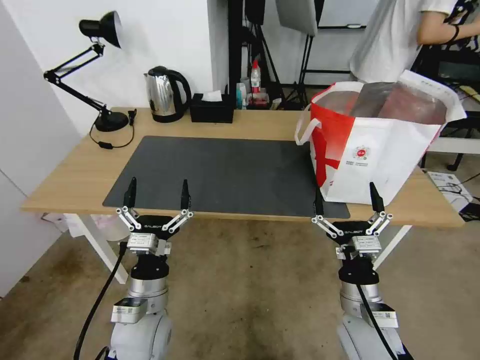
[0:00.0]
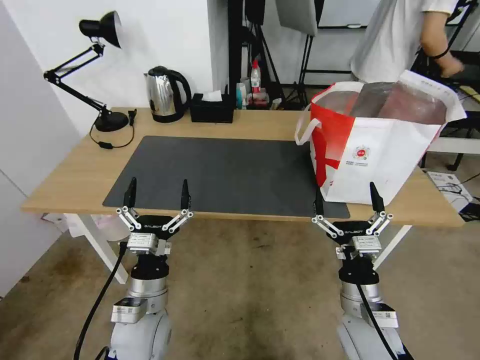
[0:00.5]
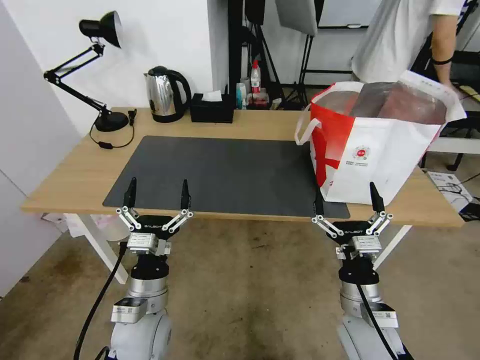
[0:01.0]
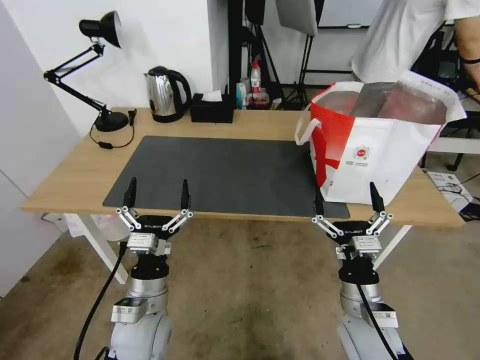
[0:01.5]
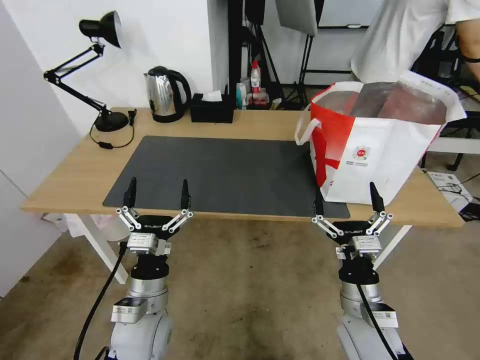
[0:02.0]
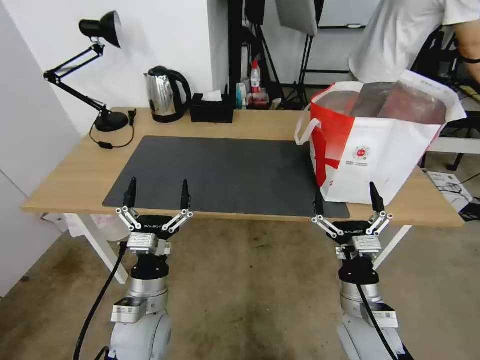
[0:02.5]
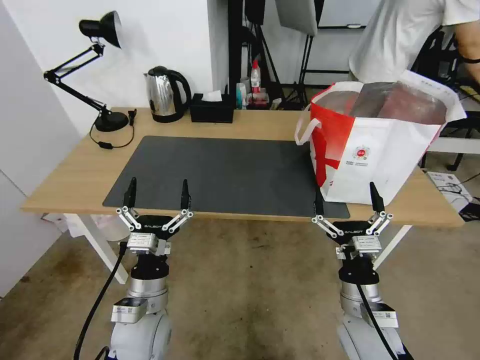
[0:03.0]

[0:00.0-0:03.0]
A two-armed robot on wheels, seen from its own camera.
Task of the whole recording: Pick up the trash from the table and place it into the takeout bag.
0:00.0 to 0:03.0: The two grippers keep their place.
